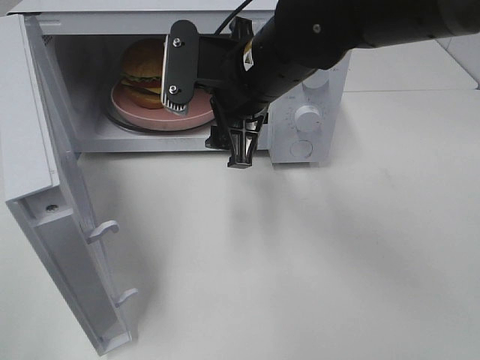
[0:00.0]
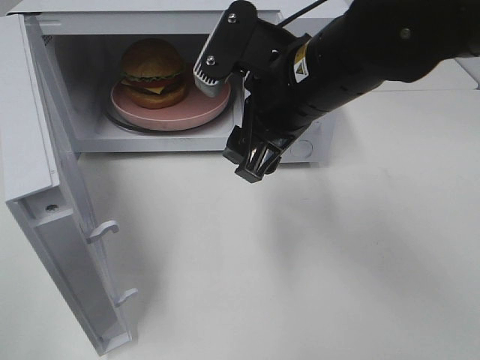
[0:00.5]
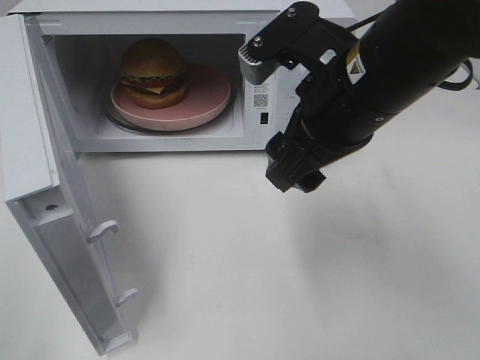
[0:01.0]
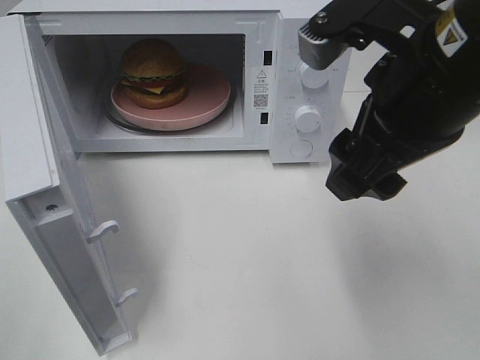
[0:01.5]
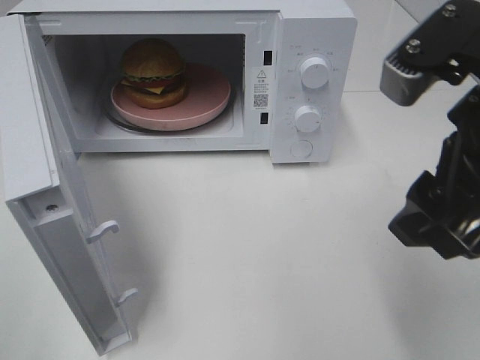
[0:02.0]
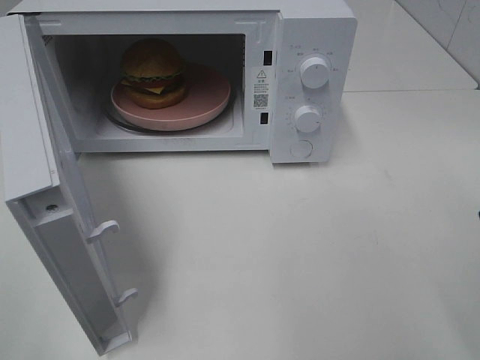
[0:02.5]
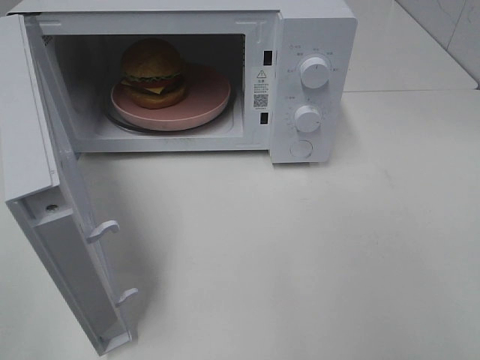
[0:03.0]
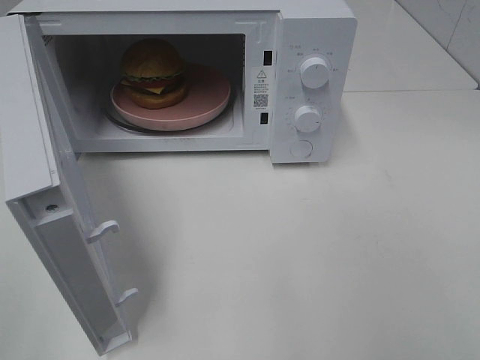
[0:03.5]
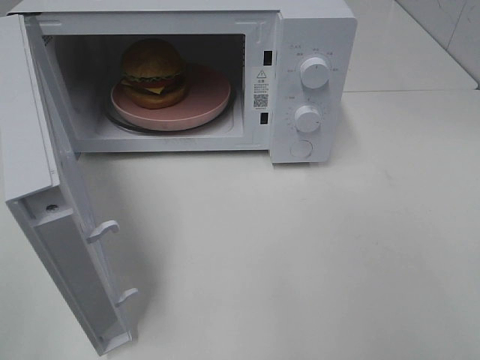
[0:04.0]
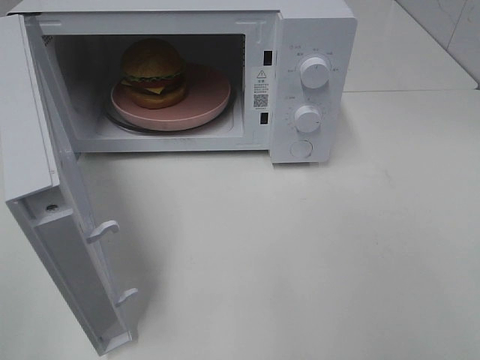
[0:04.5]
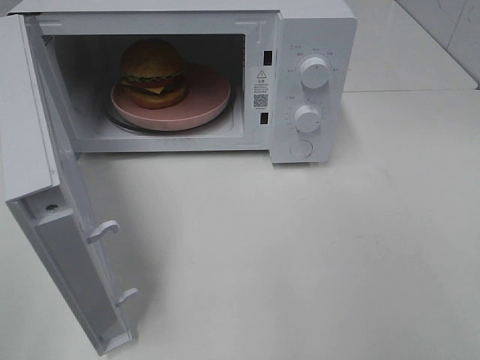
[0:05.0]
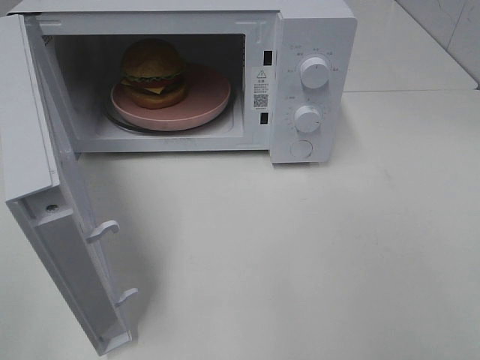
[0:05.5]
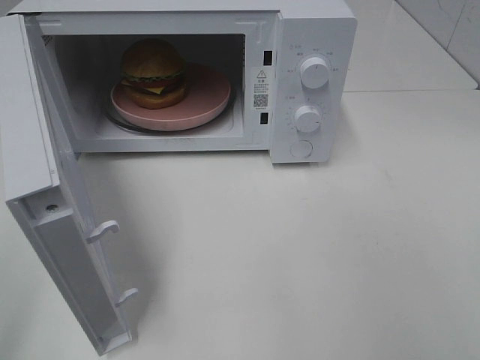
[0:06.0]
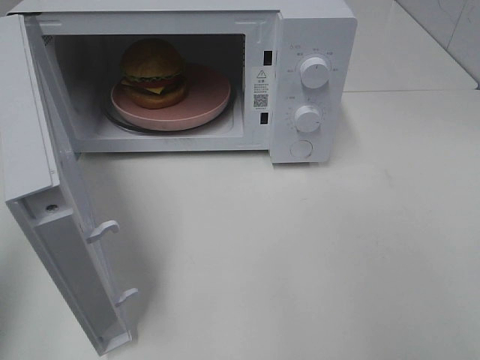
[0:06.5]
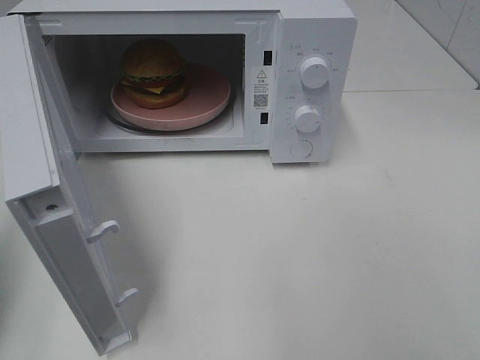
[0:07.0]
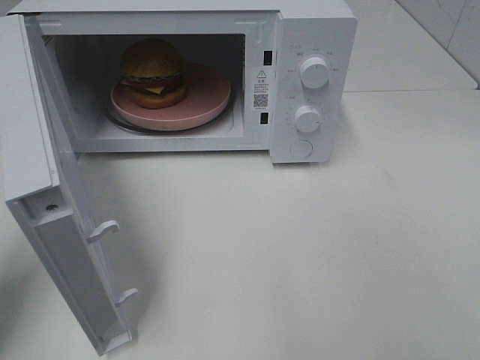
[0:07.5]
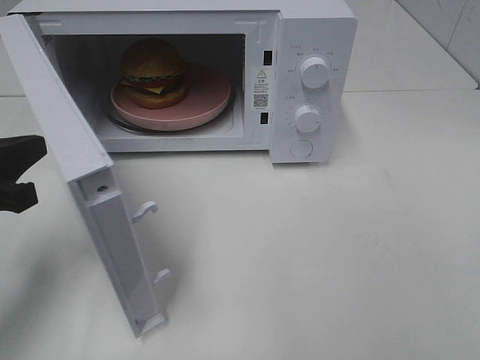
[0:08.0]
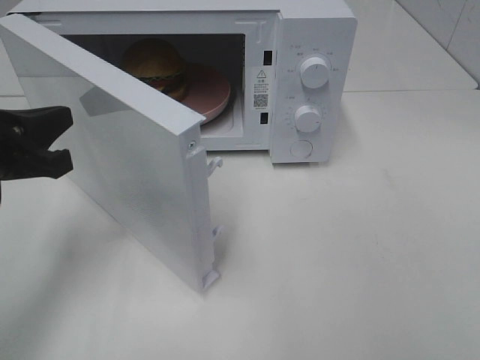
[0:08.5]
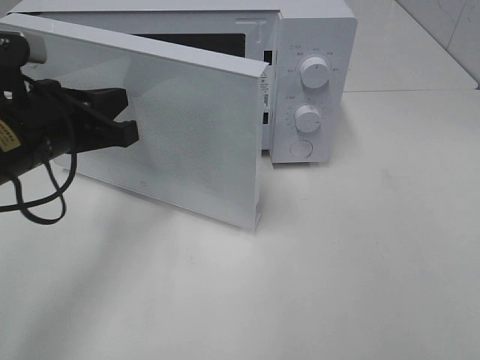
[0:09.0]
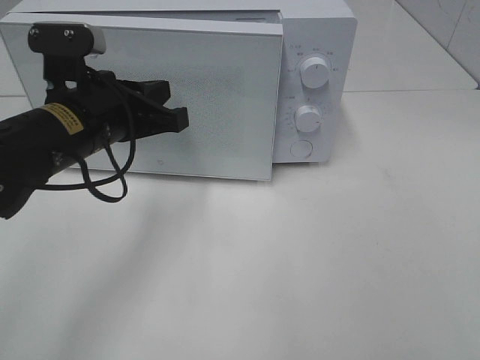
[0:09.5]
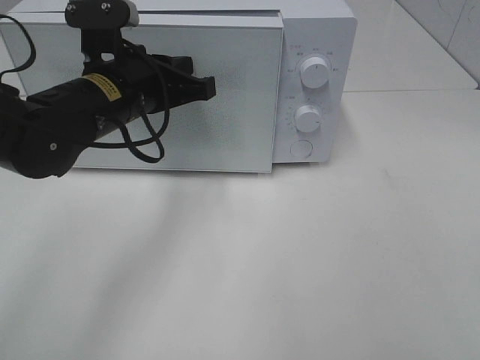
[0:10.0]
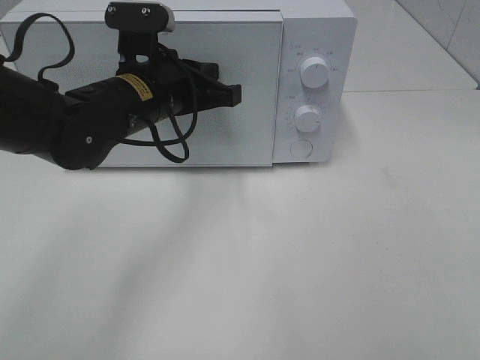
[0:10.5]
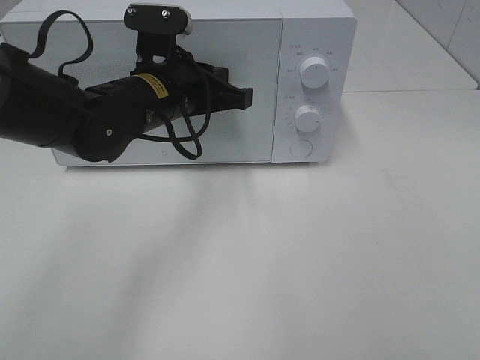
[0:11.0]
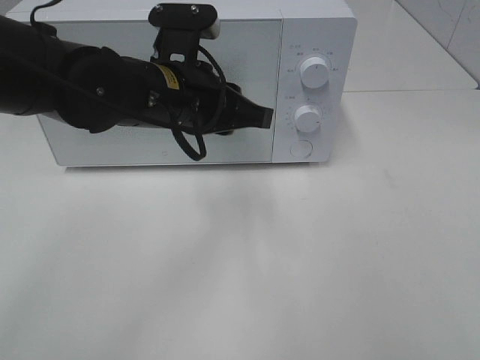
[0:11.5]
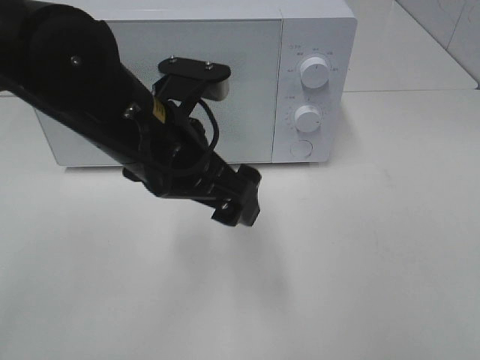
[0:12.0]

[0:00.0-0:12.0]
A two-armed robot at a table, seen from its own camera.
Task of the whole recording: Heat the burger.
Step, 0:00.0 to 0:11.0: Left hand: close the microwave door.
0:00.0 to 0:02.0: The right gripper heads backward, to the right and upward, covering some 20 cm.
0:02.0 to 0:04.0: The right gripper is displaced backward and to the right by some 20 cm.
0:06.0 to 0:08.0: The left gripper travels forward and downward by about 25 cm, and closes up.
0:08.0 to 0:10.0: The left gripper shifts approximately 20 cm to the right and forward.
0:10.0 to 0:12.0: The left gripper shifts roughly 10 cm backward, and opens its fingers.

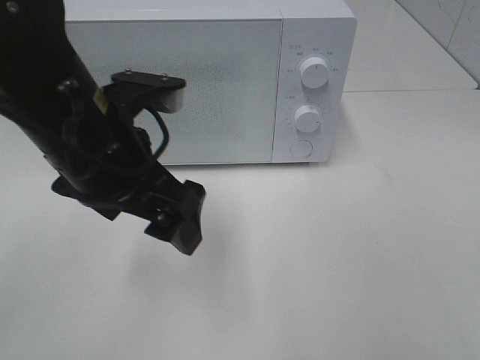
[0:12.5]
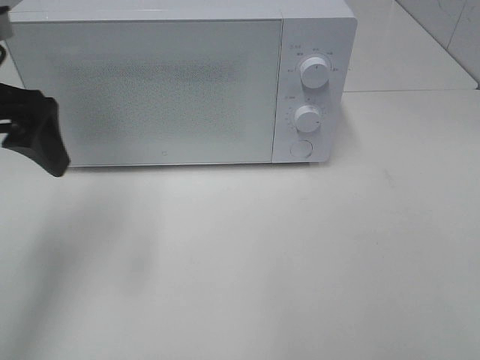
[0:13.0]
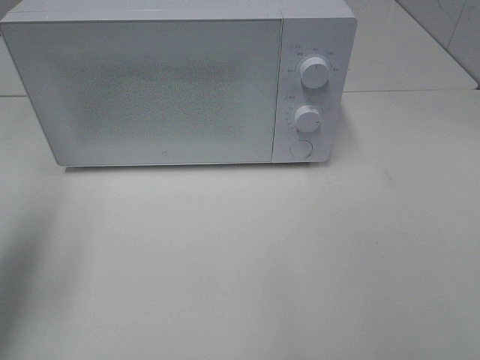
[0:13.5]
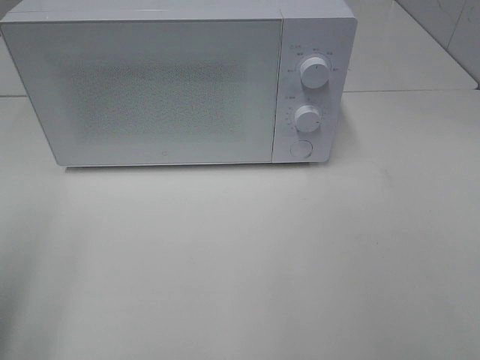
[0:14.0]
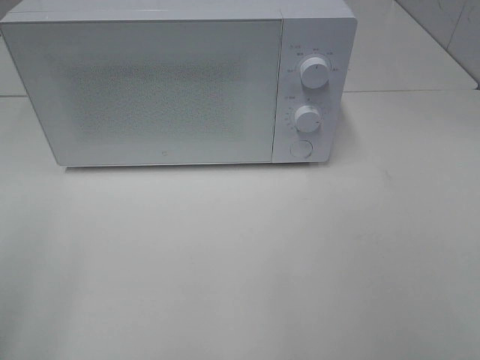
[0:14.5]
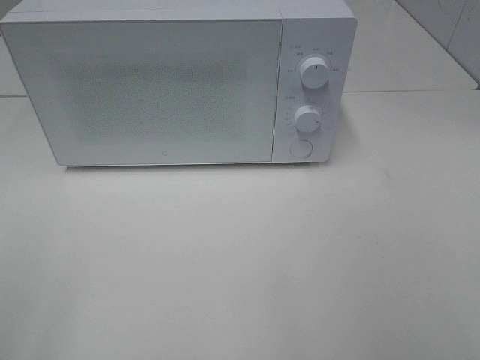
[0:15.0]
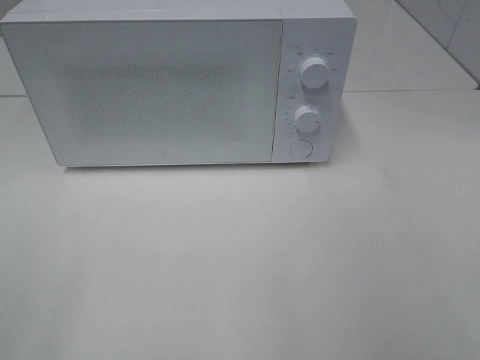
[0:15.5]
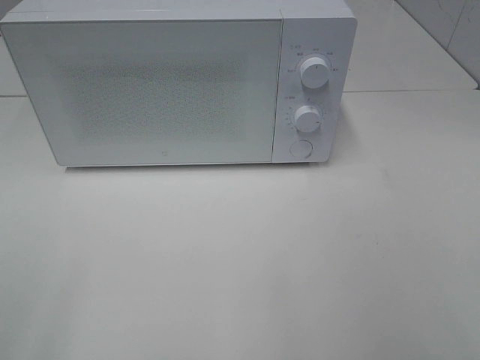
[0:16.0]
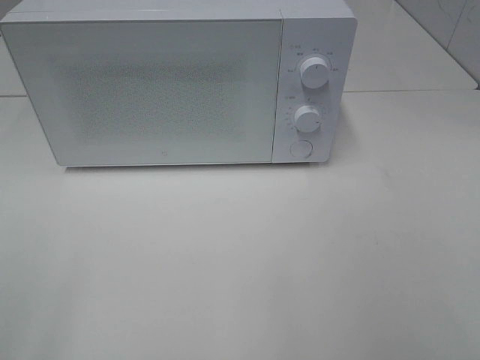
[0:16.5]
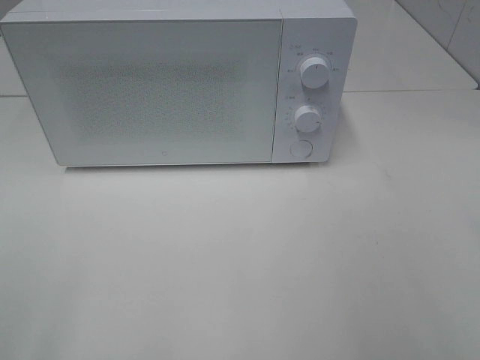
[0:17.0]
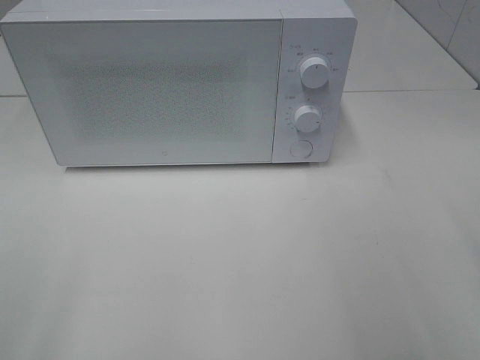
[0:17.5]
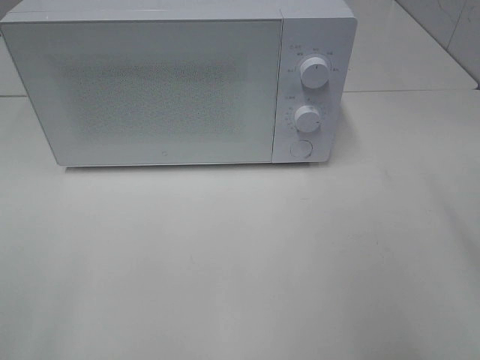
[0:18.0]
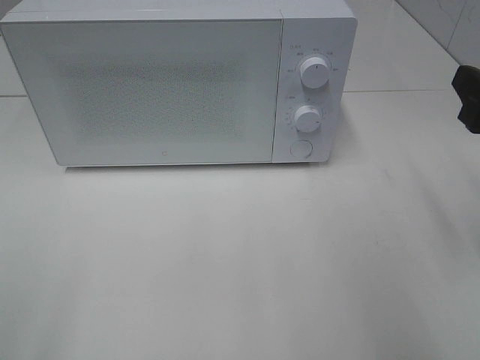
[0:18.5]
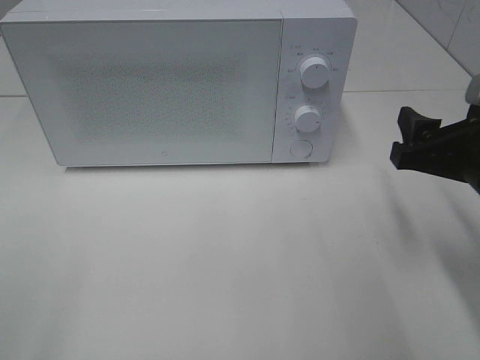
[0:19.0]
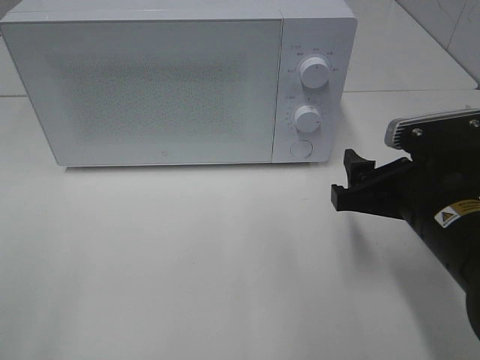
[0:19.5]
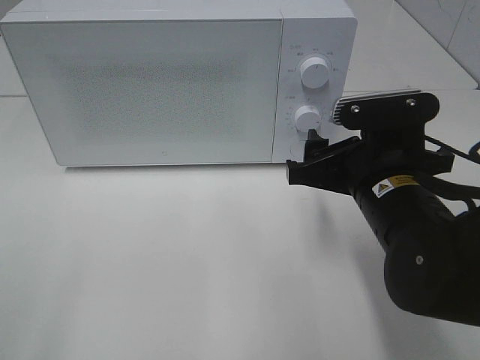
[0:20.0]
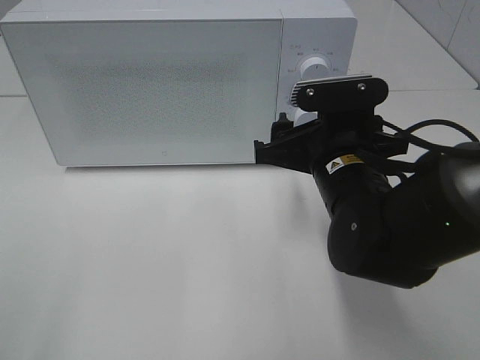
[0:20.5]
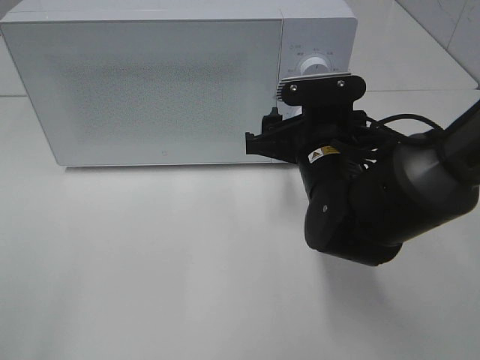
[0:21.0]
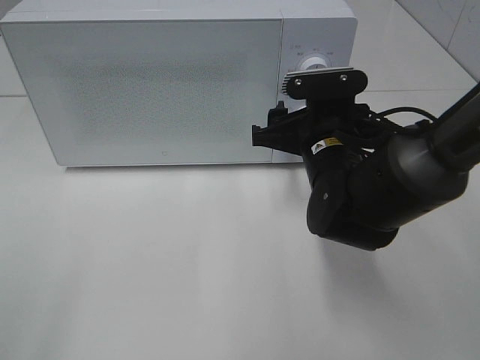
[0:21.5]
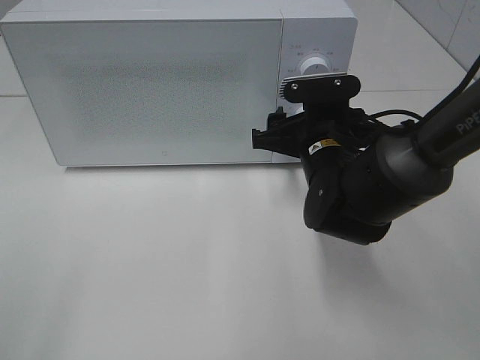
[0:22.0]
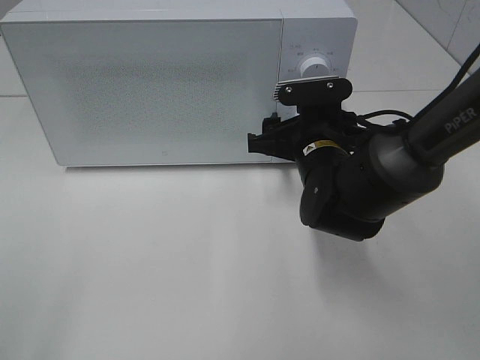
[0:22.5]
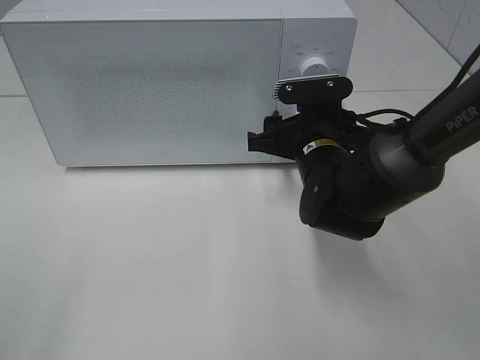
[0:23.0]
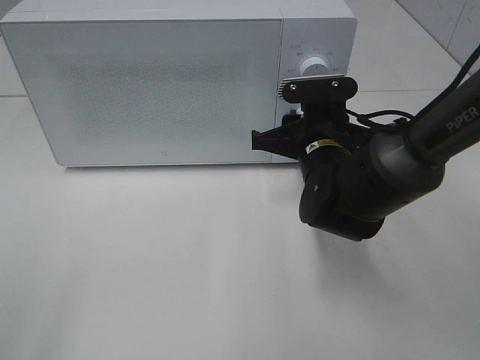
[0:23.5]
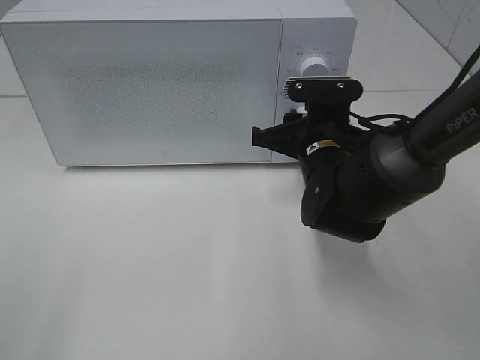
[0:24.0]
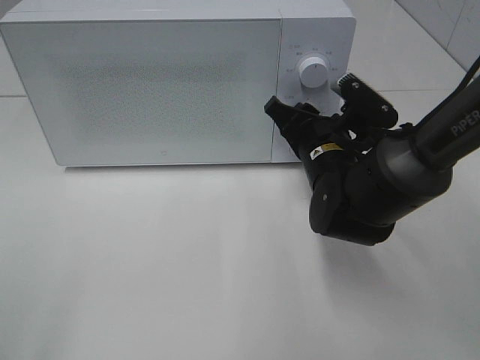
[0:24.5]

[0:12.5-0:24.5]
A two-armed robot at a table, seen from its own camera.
Task of the whole recording: Heat the burger.
0:12.5 to 0:14.5: The left gripper moves to the left and backward, roughly 25 cm.
0:16.5 to 0:18.5: The right gripper heads forward, covering roughly 20 cm.
0:18.5 to 0:20.5: The right gripper heads to the left and downward, covering roughly 20 cm.
0:20.5 to 0:22.5: The right gripper heads forward, covering approximately 5 cm.
0:22.5 to 0:24.5: The right gripper closes.

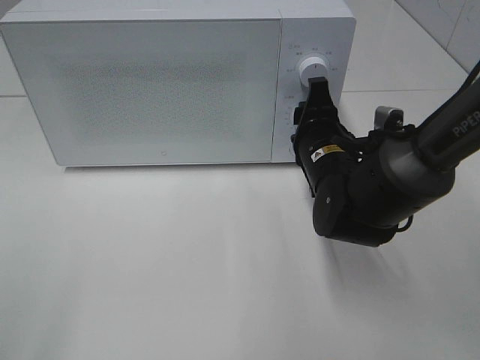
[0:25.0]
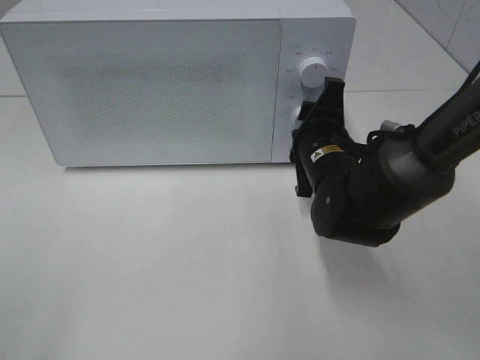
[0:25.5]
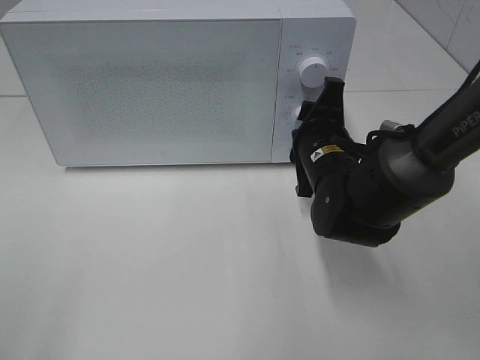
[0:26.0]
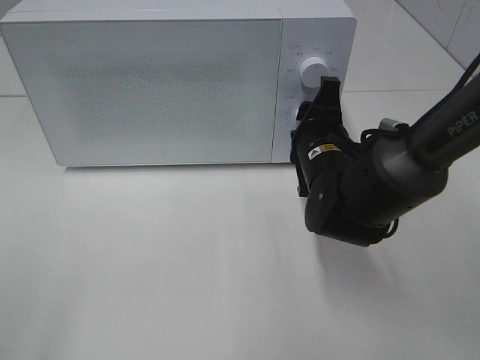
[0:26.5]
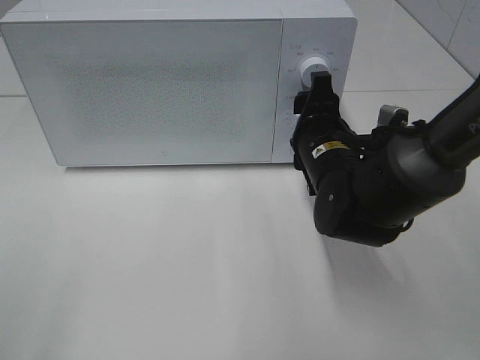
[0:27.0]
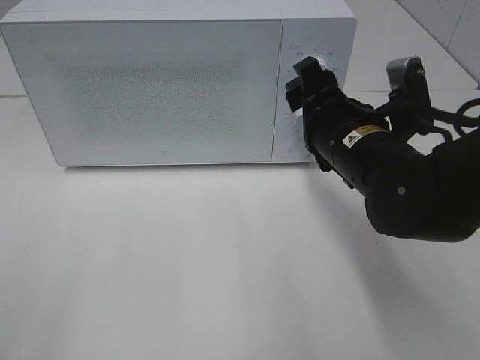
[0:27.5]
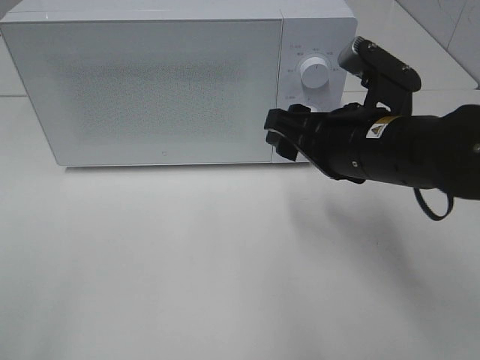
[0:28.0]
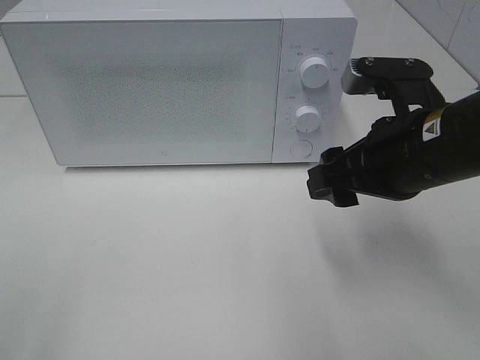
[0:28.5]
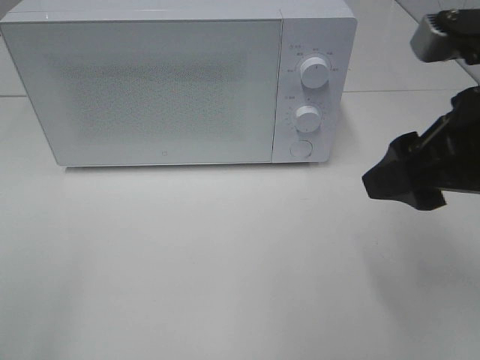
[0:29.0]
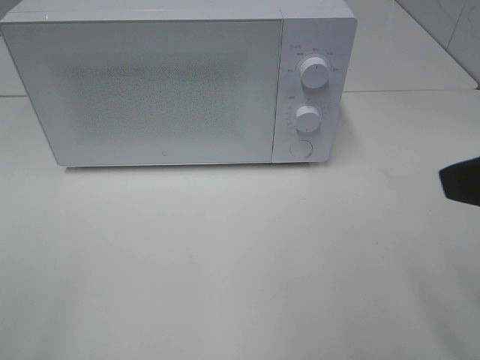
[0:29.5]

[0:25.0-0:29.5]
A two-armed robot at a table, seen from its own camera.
Task of the whole recording: Heat the burger.
Step, 0:25.0 to 0:27.0: Right hand: twist timer button.
0:25.0 to 0:27.0: The grippers make only small movements.
0:27.0 to 0:29.5: The right gripper travels backward, upward and to the right by roughly 30 cm.
